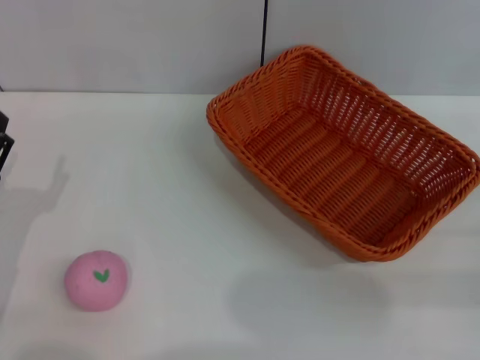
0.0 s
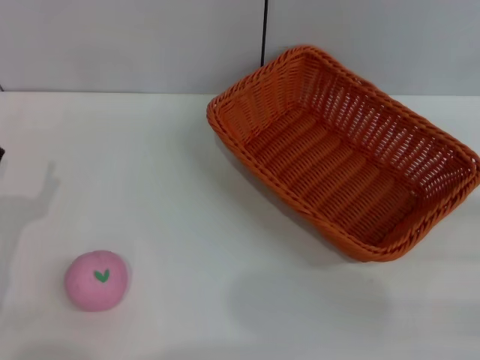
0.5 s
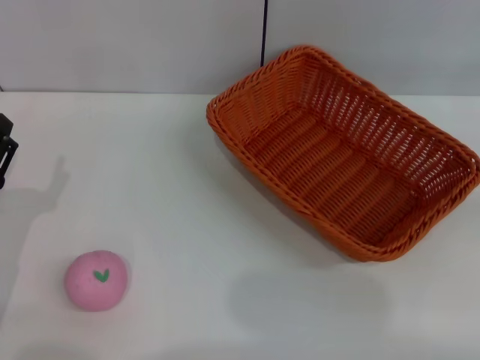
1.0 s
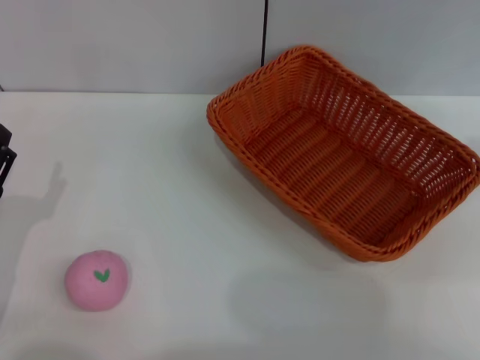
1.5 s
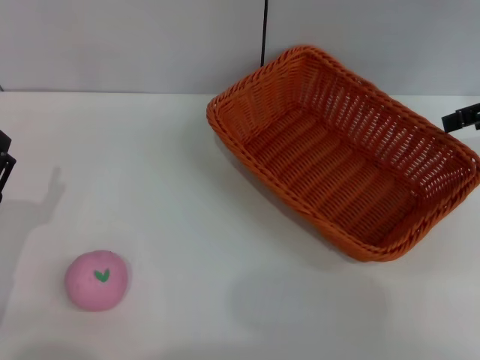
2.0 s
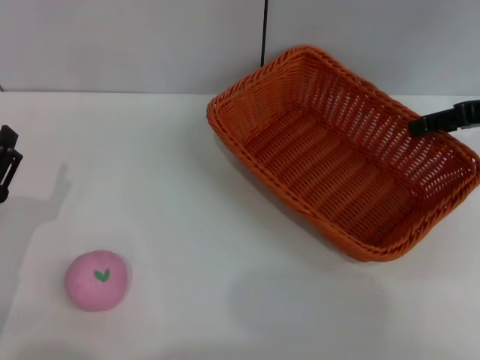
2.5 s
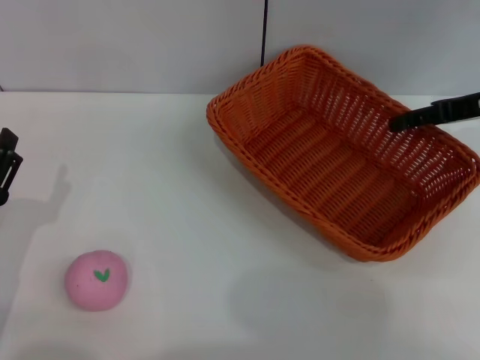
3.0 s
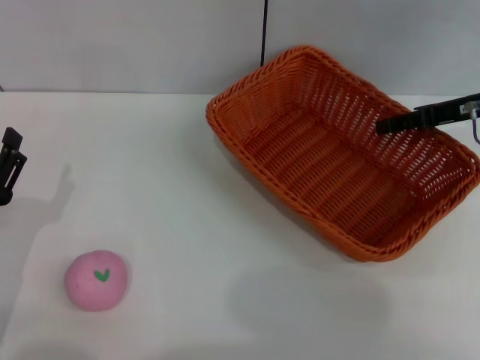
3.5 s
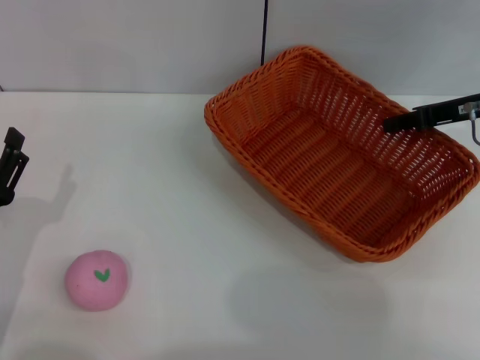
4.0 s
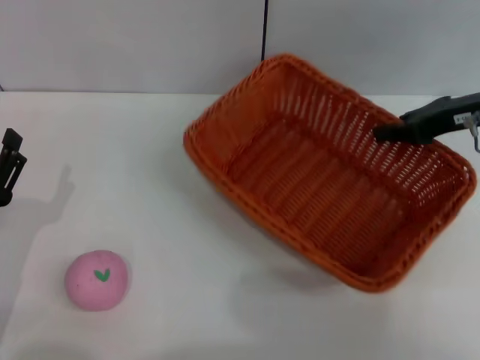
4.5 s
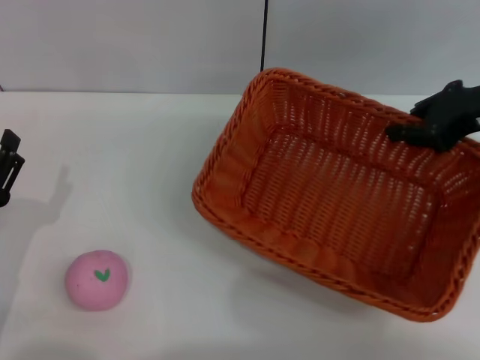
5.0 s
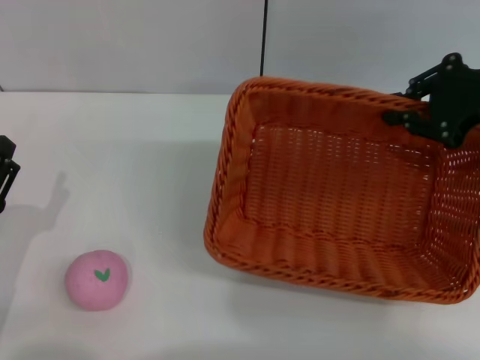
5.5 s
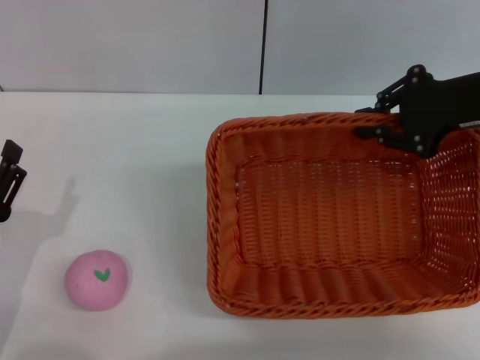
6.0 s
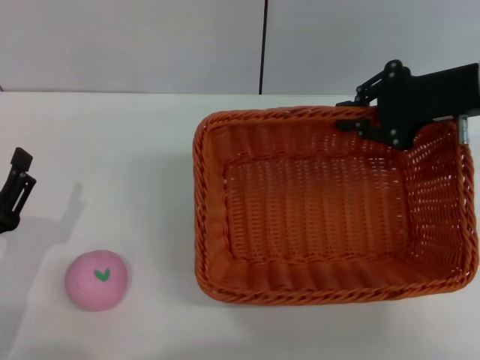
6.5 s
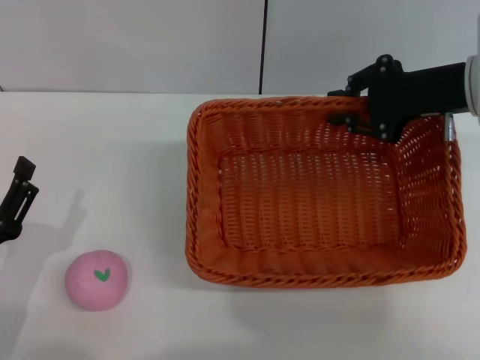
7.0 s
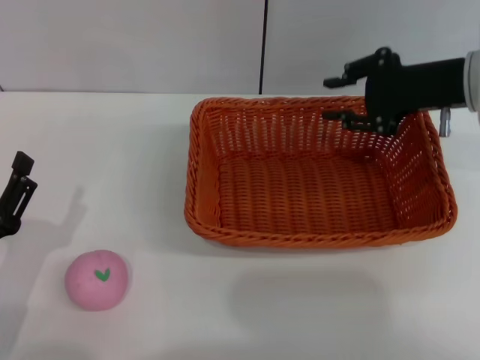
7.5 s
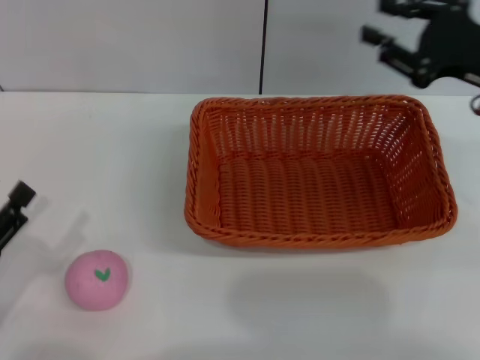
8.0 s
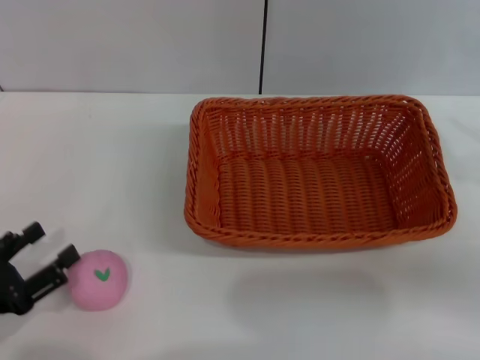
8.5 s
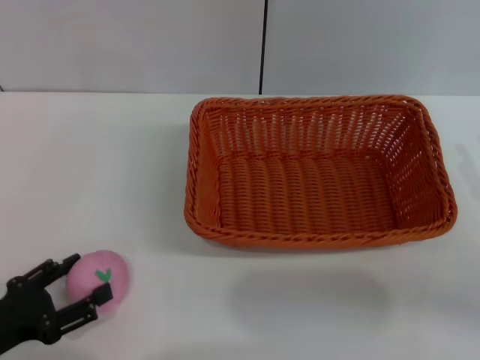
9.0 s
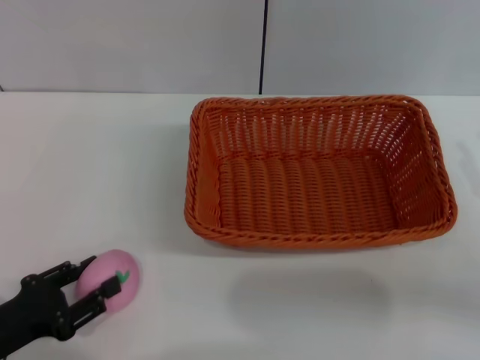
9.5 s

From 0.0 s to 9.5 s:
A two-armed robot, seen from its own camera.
Step, from 0.0 s to 5.0 s: Pick up the light basket with the right gripper.
Step, from 5.5 s to 7.5 s: Place the light basket in the center of view with the right gripper.
From 0.0 s to 2.0 s: The right gripper moves upward and forward, approximately 20 cm.
From 2.0 s to 4.0 s: The right gripper shifts some 10 cm downward and to the left, and closes.
From 4.0 s to 5.5 s: The right gripper goes roughly 5 cm upward, and closes up.
From 5.5 s to 7.5 s: The right gripper ends up approximately 5 cm from where it was.
From 7.5 s to 9.5 s: The right gripper heads backward, to the right and downward, covering roughly 20 cm.

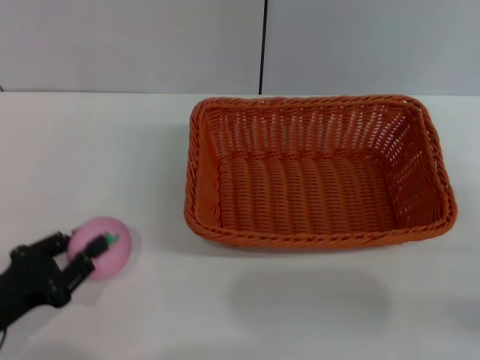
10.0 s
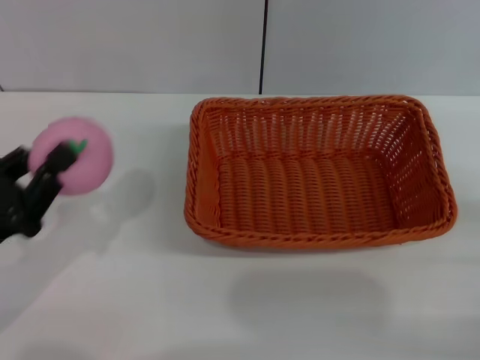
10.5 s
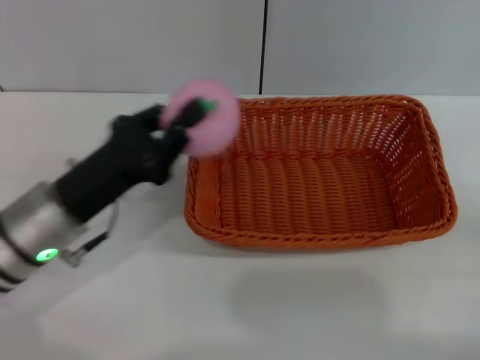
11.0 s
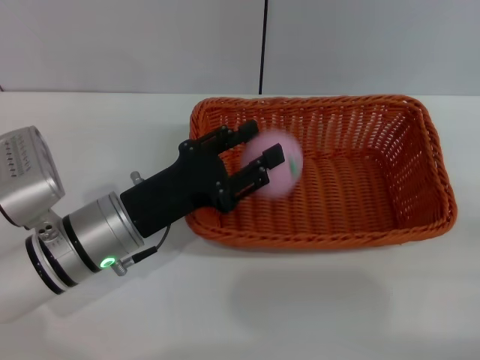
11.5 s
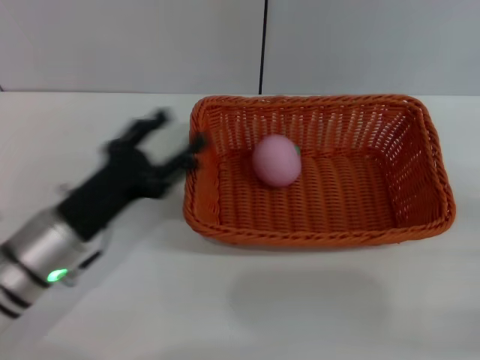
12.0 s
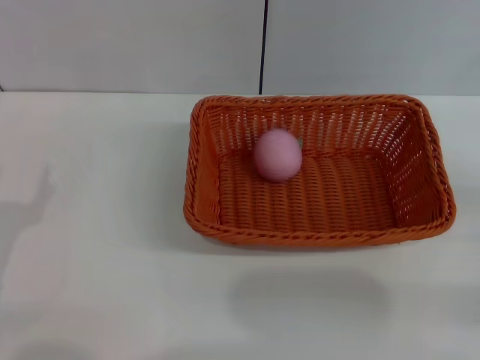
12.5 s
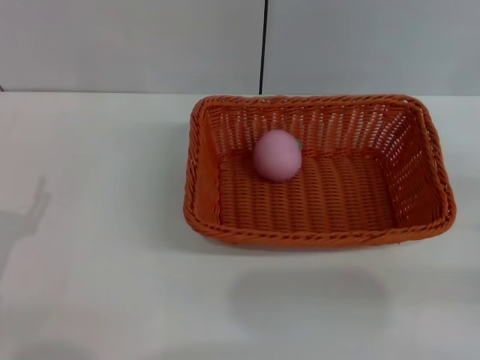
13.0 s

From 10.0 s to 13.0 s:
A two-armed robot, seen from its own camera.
Step, from 11.0 s to 12.0 s: Place the peach into the basket with the left gripper.
From 10.0 s to 11.5 s: The left gripper moves to the right and forward, roughly 15 cm.
From 11.5 s to 13.0 s: The right gripper is displaced forward by approximately 5 cm, and opens up; the left gripper shifts about 15 cm to the left and backward, and opens.
